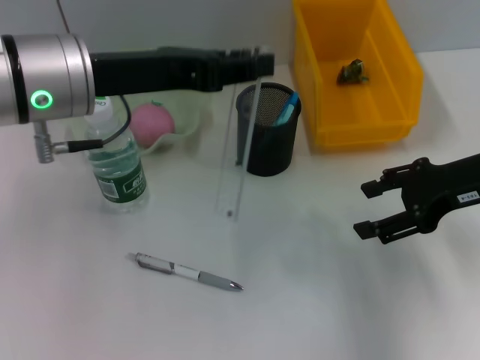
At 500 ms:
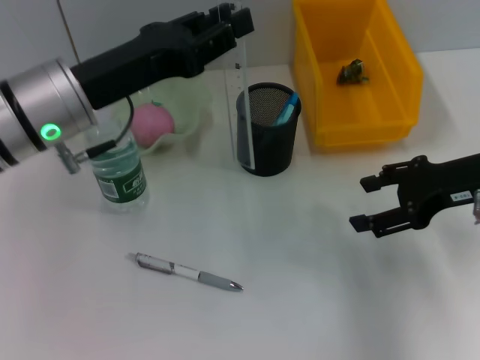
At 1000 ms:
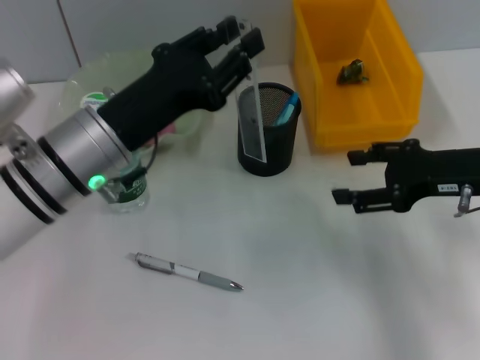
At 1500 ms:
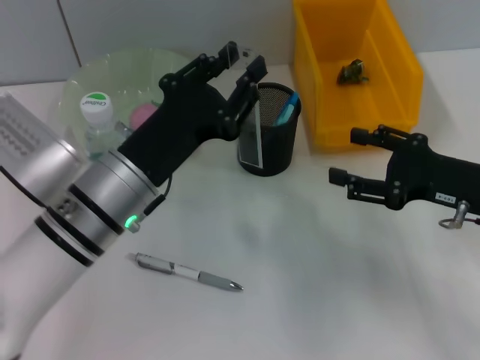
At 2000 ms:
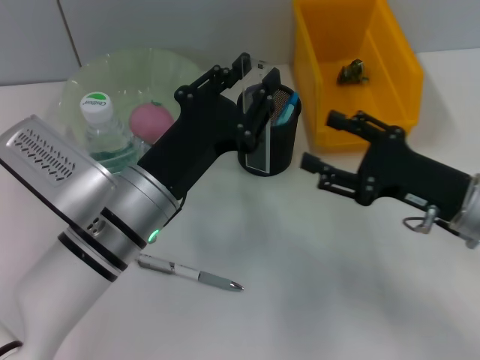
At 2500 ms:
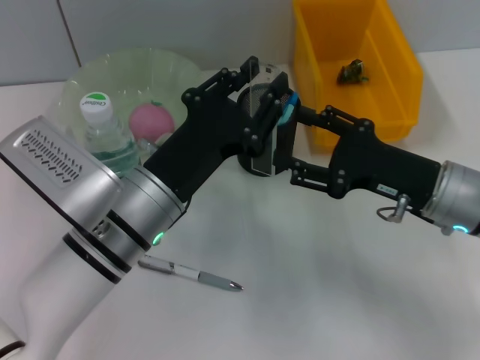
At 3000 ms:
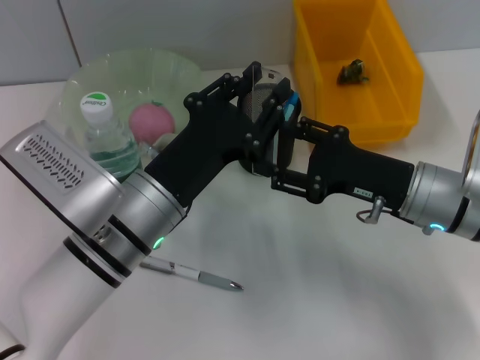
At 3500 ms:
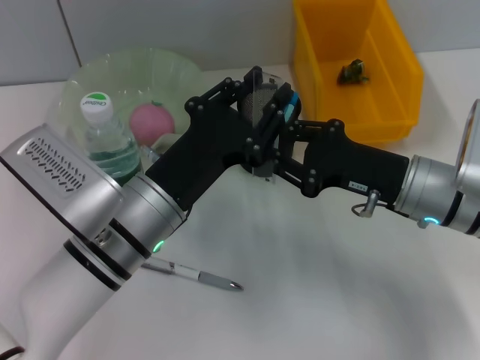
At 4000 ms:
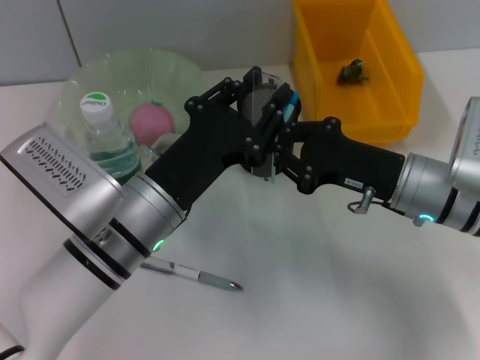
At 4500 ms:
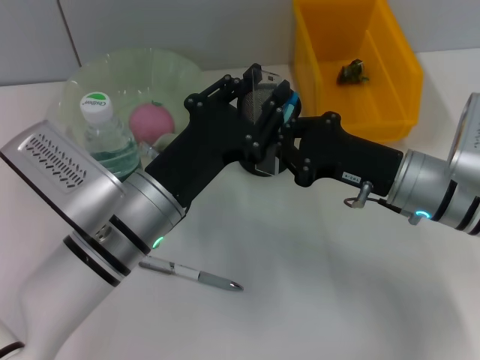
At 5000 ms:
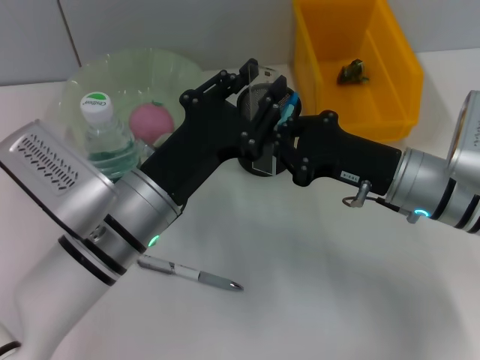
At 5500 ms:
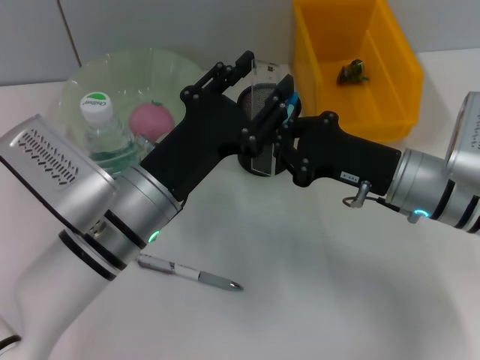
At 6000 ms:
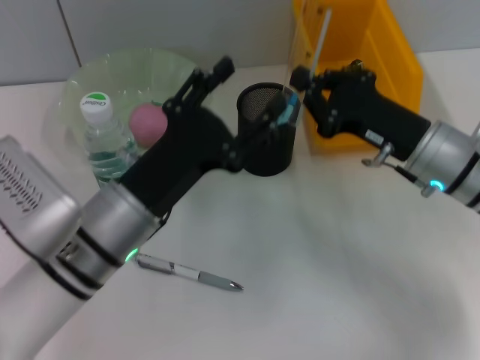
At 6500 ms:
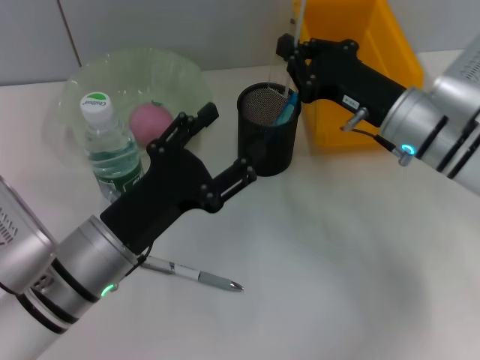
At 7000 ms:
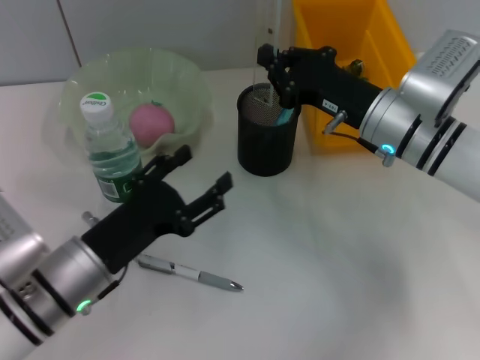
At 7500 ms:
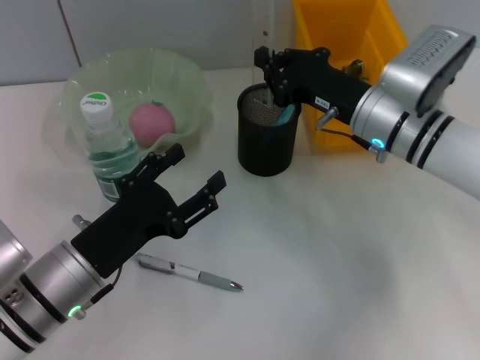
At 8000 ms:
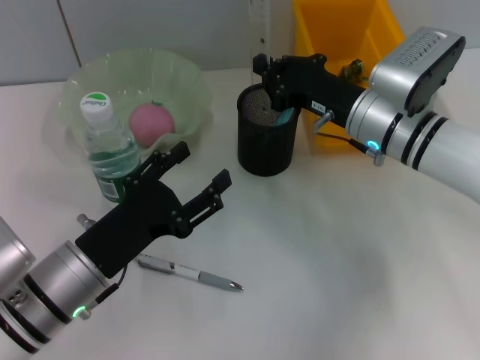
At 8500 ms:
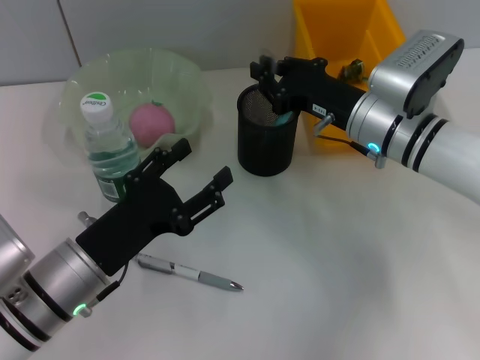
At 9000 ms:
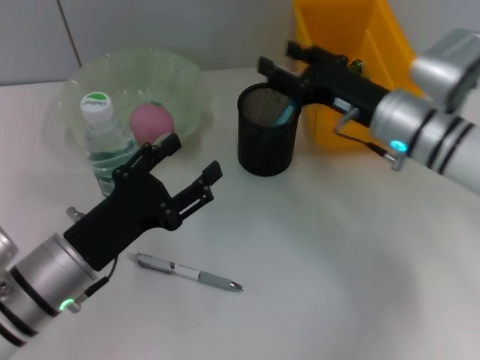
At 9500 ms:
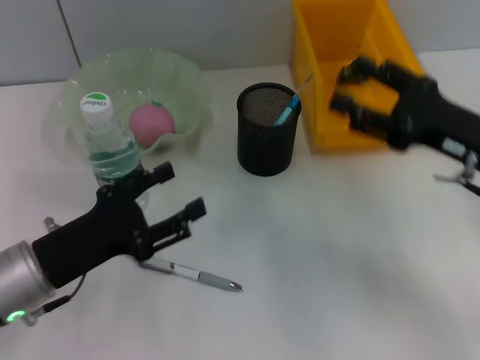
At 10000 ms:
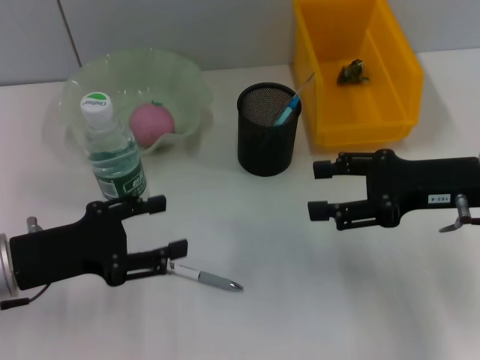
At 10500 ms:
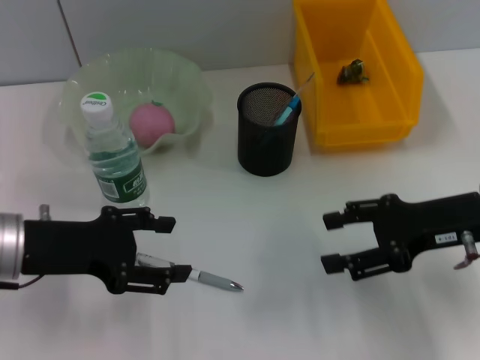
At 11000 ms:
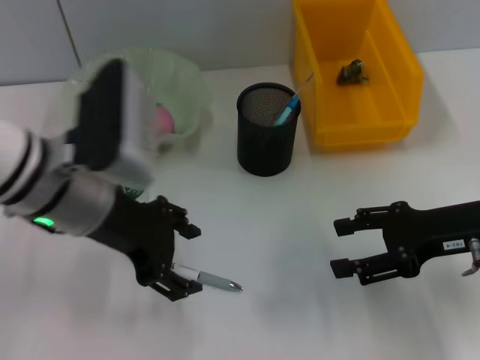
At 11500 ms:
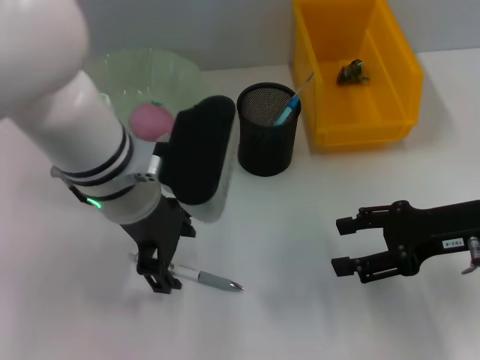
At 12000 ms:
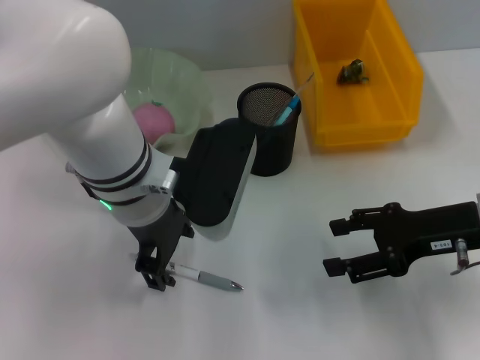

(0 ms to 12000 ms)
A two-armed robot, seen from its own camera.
Step, 0 ms - 5500 ms: Pass the ruler from the left hand to the right hand.
Step, 6000 ms - 8500 ms: Place the ruler into the pen holder with the right hand.
0 ms - 2000 ms: The right gripper moves downward, roughly 10 cm. Meanwhile the left gripper shifts about 15 cm downward.
2000 ms - 4000 ms: The right gripper changes place by about 5 cm, and closes up.
6000 ms - 8000 ms: The left gripper moves to the left, some 5 cm; the right gripper travels forward by approximately 5 cm.
8000 ms - 10000 ms: The right gripper shifts approximately 10 cm to the right and backward, and opens its fingers. Meanwhile the left gripper goes some 5 cm to the left.
10000 ms - 12000 ms: The left gripper is displaced to the right and upward by approximately 20 cm.

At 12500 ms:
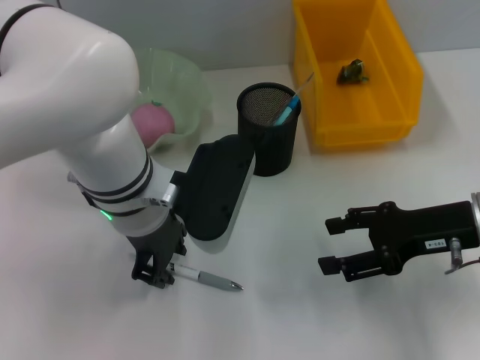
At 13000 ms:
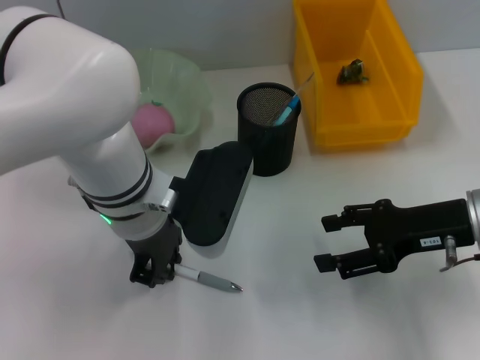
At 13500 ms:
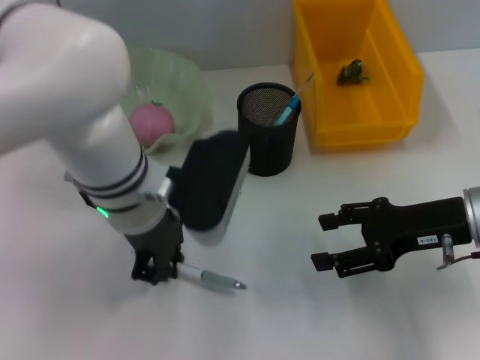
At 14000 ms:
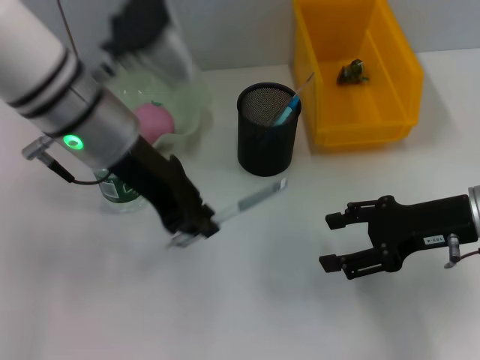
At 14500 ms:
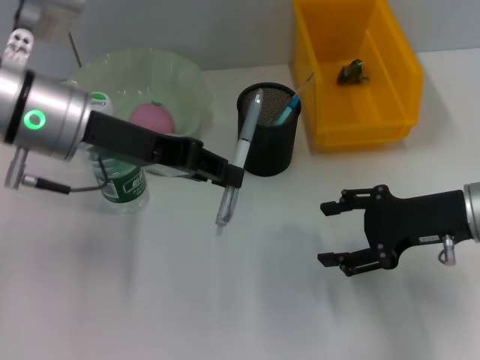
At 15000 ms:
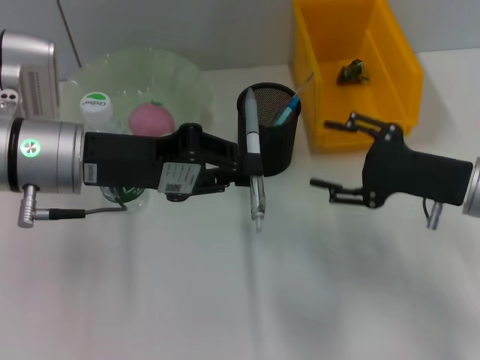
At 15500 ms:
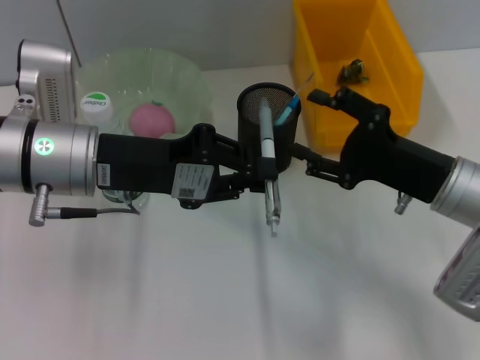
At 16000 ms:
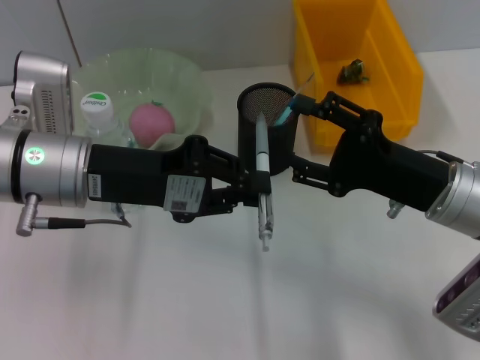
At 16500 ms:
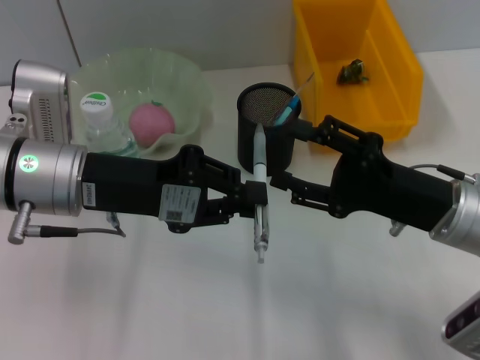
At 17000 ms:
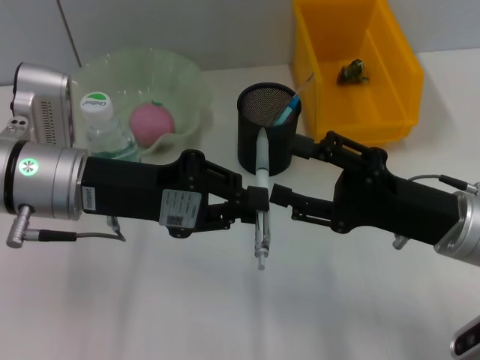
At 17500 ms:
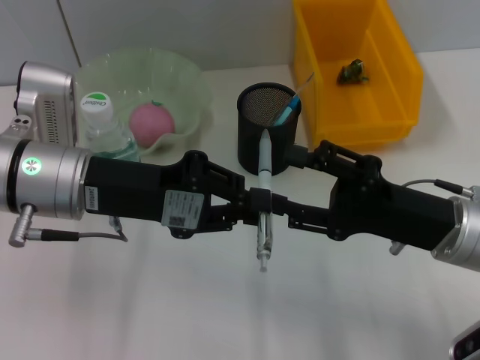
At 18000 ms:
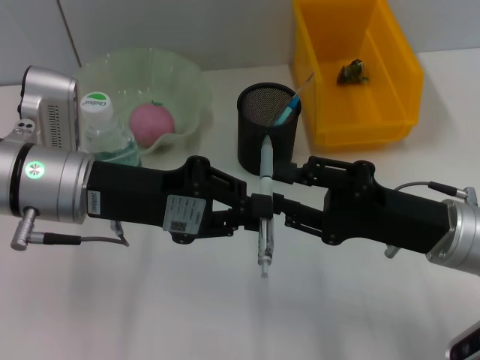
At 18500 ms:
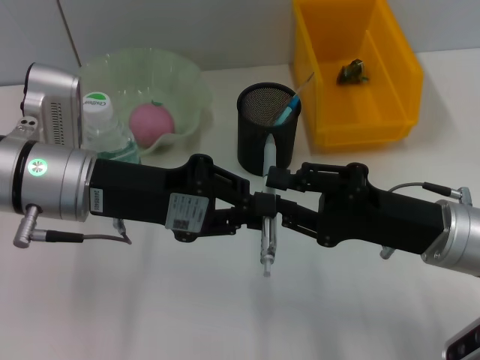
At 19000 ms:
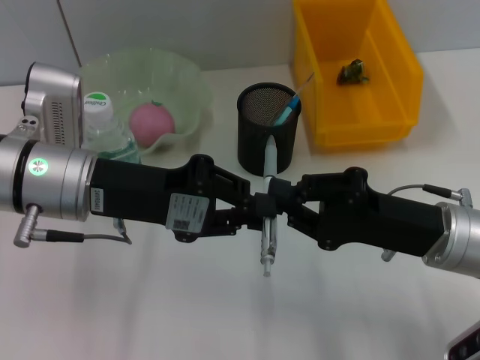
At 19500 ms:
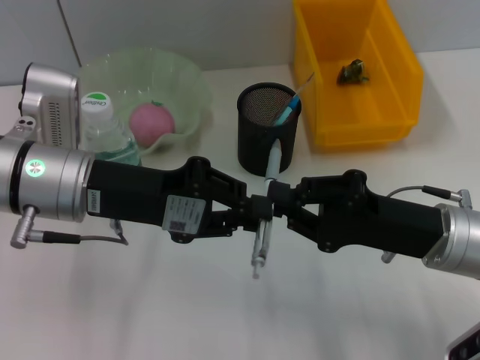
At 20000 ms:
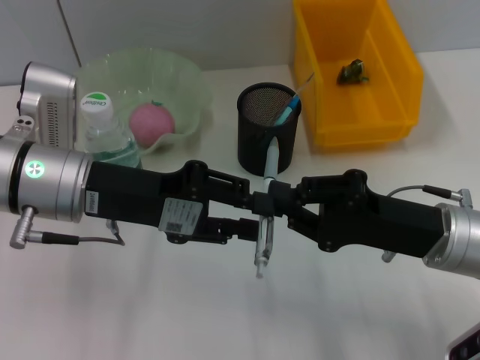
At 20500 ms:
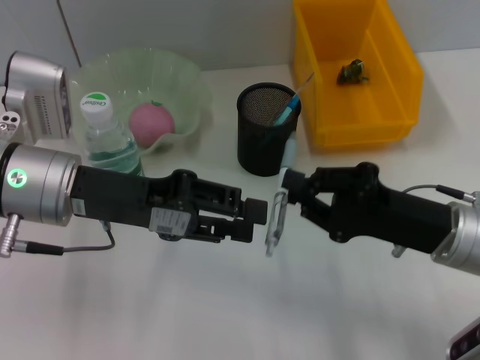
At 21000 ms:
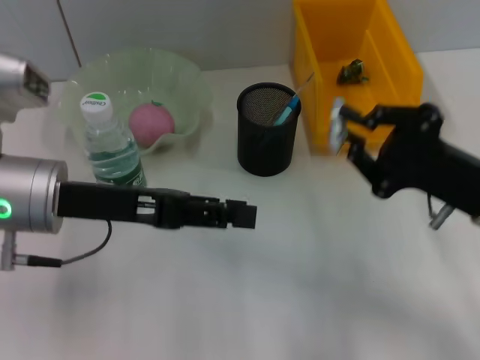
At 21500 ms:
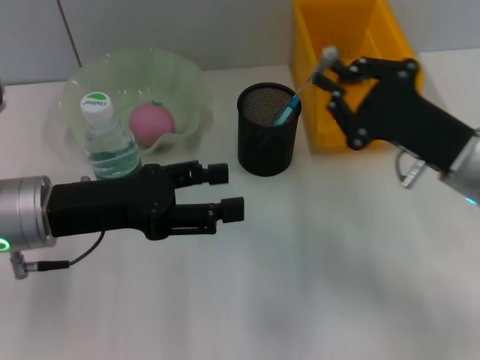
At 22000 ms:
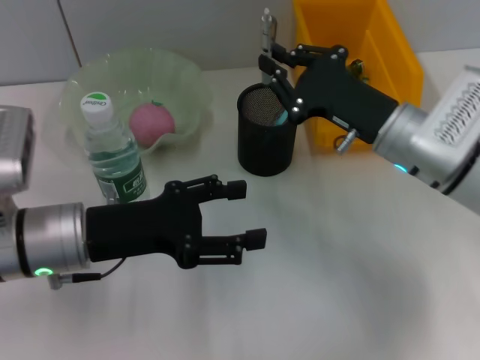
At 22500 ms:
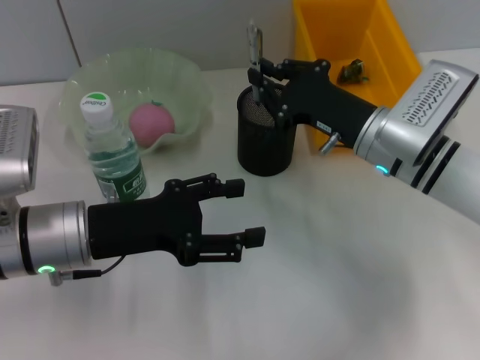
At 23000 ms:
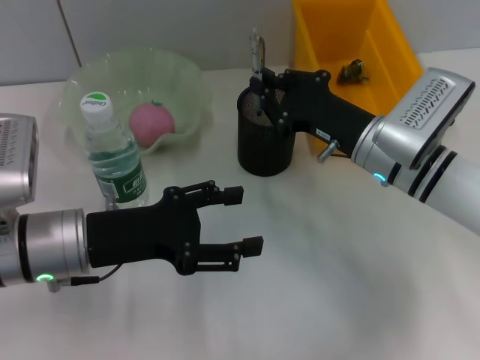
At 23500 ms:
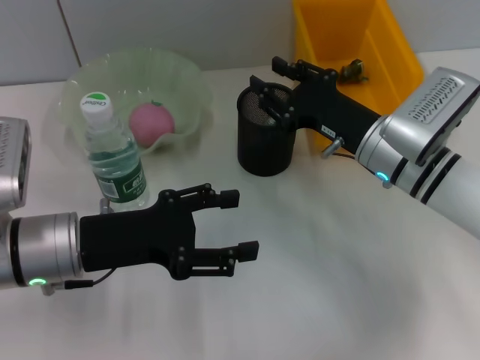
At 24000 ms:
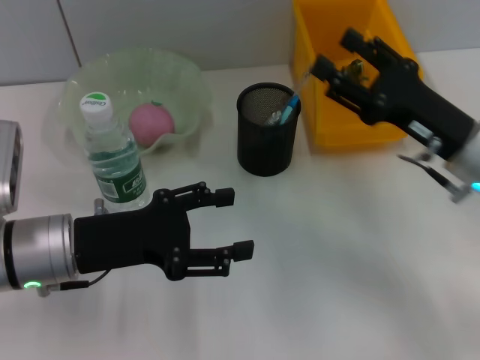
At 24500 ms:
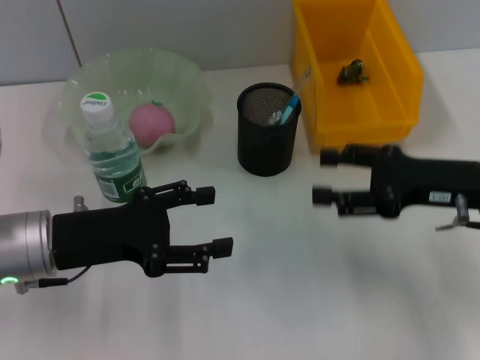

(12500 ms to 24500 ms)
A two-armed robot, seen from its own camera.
Step, 13500 ms - 20000 ms: Pass the gray spring-action pen from the left hand to the right hand.
Step, 20500 ms - 23500 ms: Place the gray spring-action pen into the pen holder with the right hand.
12500 ms - 14500 ms: The left gripper is displaced to the left and upward by approximately 10 cm, and closes its fingers.
14500 ms - 16500 ms: The left gripper changes place by roughly 5 cm.
16500 ms - 18500 ms: The right gripper closes up.
18500 ms - 20500 ms: The left gripper opens up.
20500 ms - 22500 ms: The left gripper goes roughly 5 cm downward, and opens up. The right gripper is displaced forward and to the left by some 10 cm.
22500 ms - 24500 ms: The right gripper goes approximately 10 cm to the right and backward, and opens its fingers.

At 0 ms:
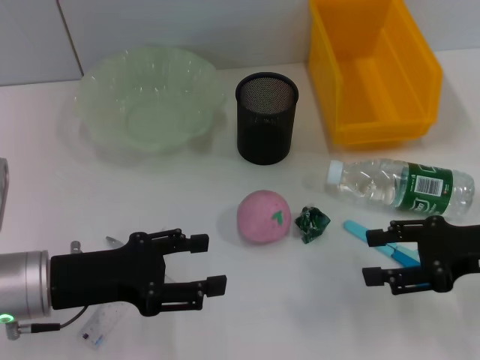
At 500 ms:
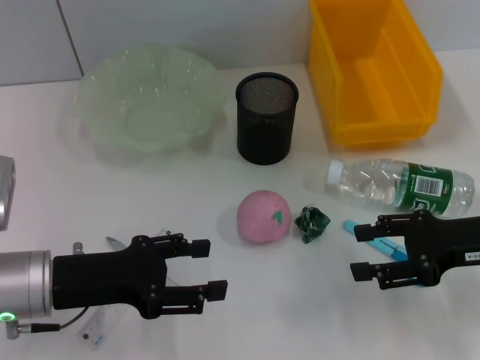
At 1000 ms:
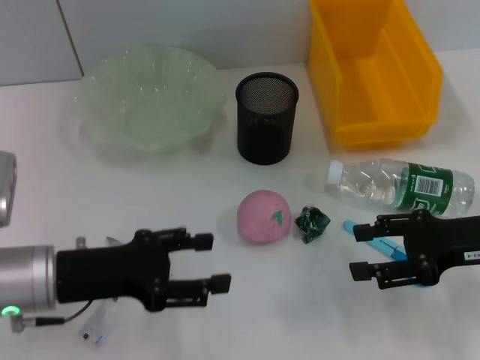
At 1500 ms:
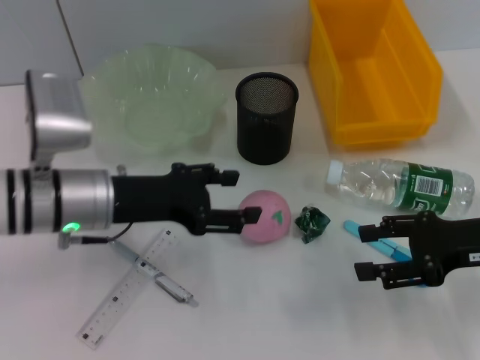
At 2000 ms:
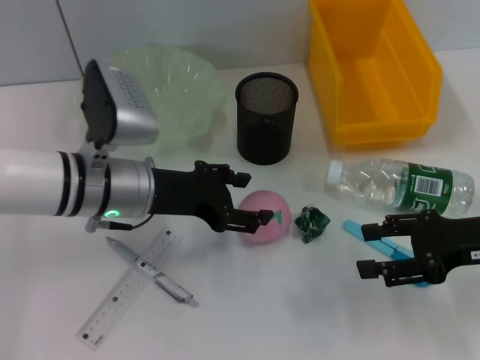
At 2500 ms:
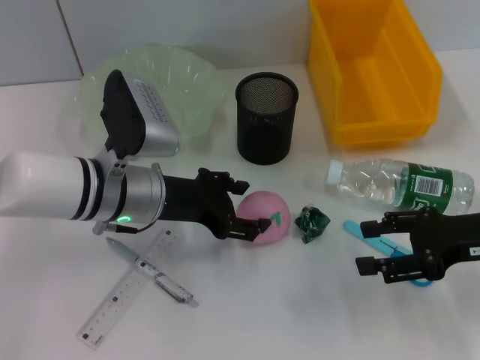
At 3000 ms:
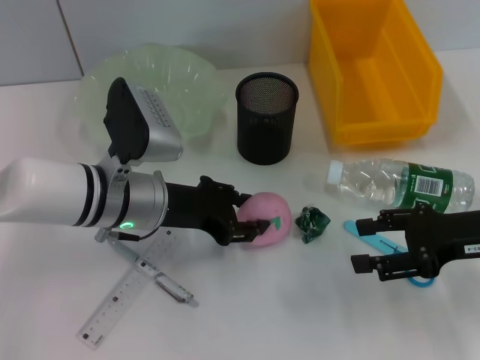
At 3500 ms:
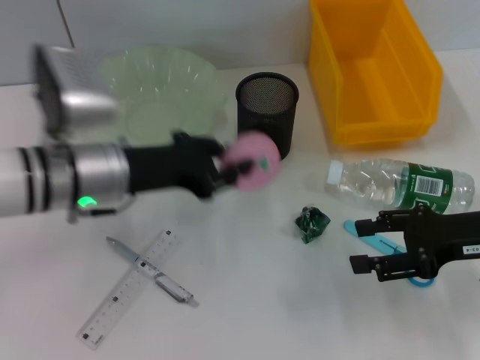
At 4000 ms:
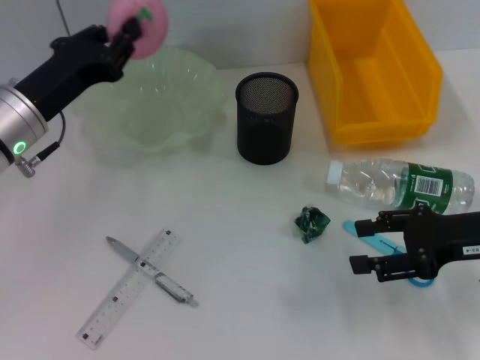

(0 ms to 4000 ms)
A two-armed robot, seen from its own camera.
Step, 0 ms - 2500 ms: Grab the peach with the left hand.
0 ms - 2000 ms: The left gripper goes approximately 10 cm to the right and forward.
2000 ms - 4000 ms: The left gripper heads to the left, covering roughly 10 cm, and closes.
